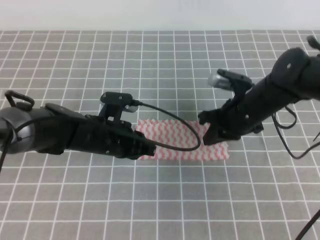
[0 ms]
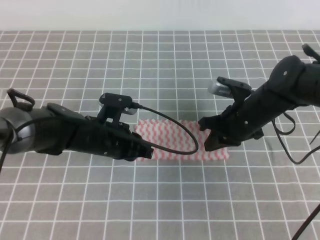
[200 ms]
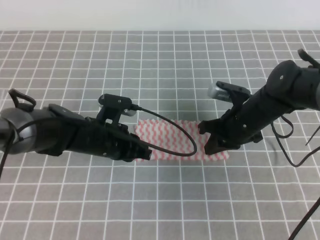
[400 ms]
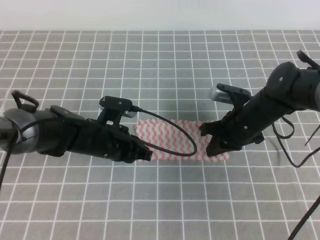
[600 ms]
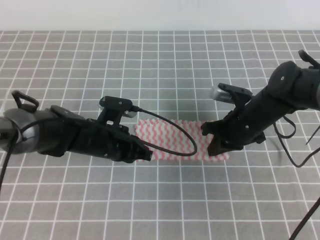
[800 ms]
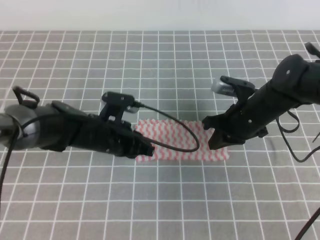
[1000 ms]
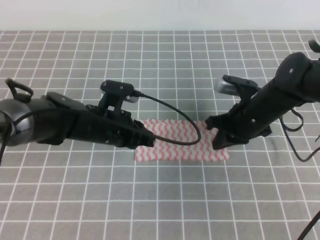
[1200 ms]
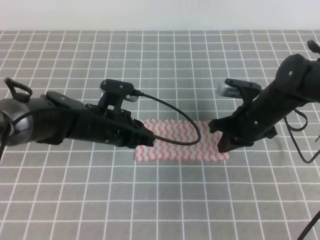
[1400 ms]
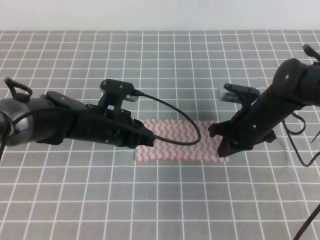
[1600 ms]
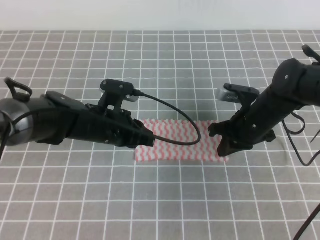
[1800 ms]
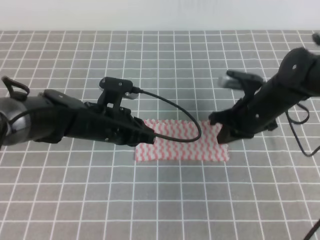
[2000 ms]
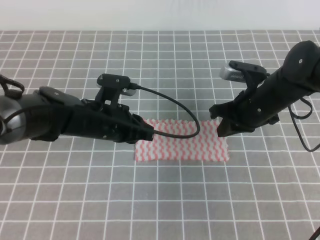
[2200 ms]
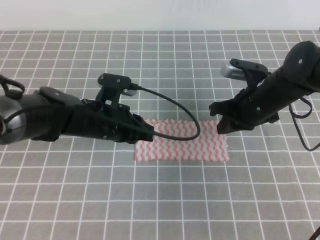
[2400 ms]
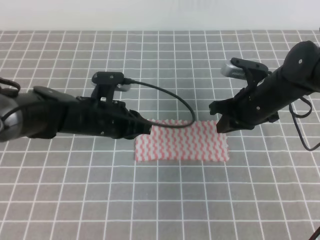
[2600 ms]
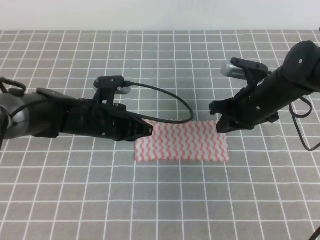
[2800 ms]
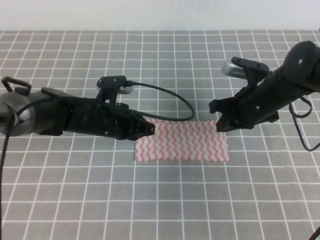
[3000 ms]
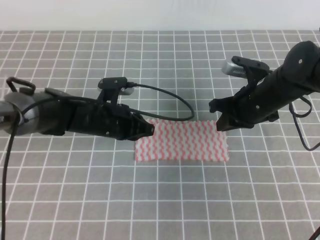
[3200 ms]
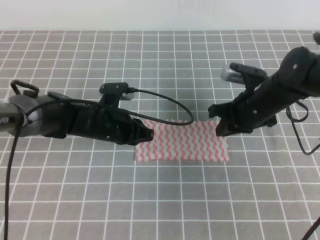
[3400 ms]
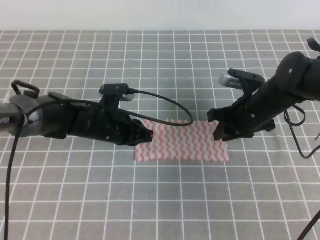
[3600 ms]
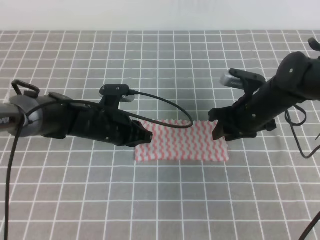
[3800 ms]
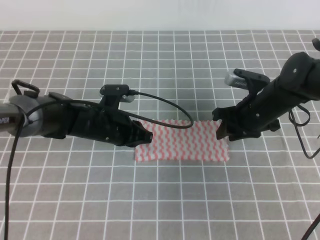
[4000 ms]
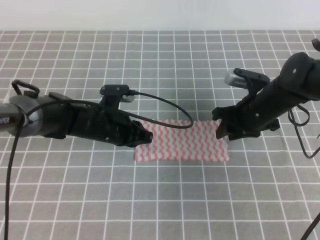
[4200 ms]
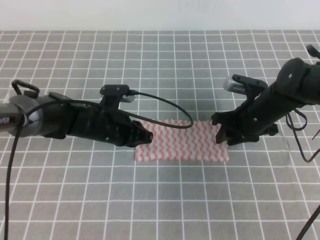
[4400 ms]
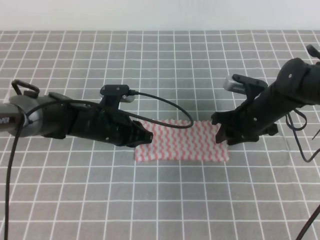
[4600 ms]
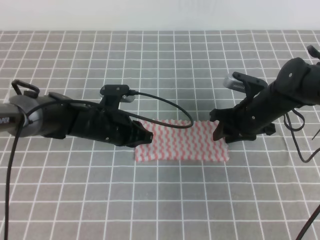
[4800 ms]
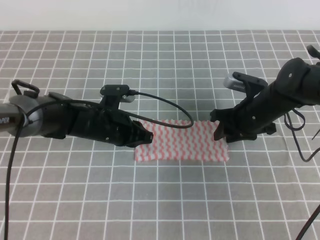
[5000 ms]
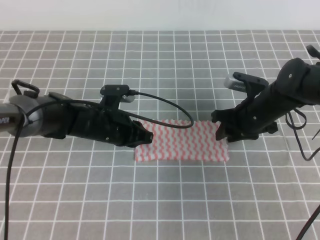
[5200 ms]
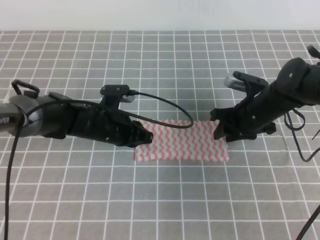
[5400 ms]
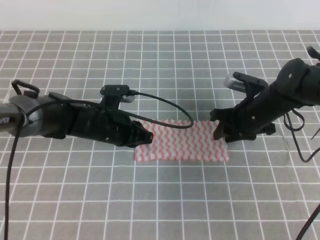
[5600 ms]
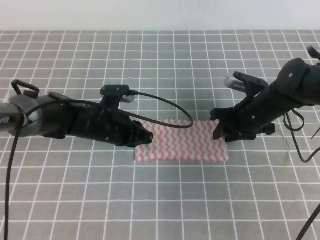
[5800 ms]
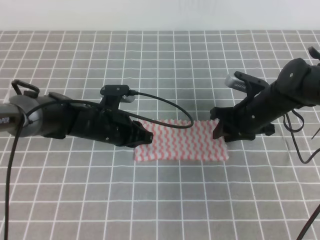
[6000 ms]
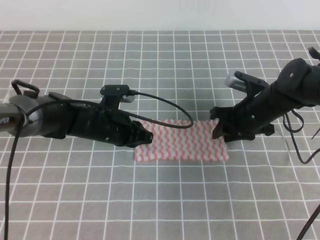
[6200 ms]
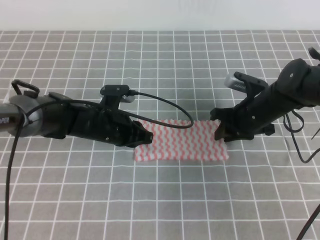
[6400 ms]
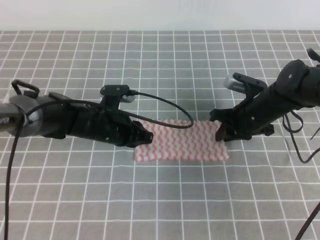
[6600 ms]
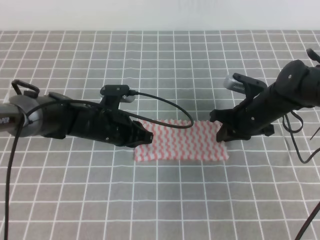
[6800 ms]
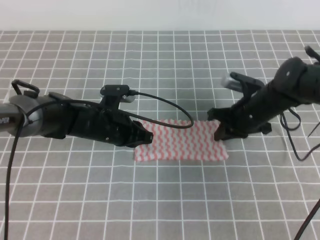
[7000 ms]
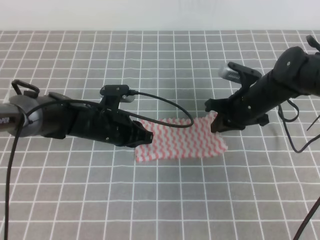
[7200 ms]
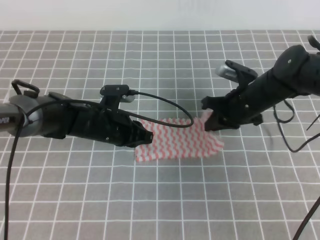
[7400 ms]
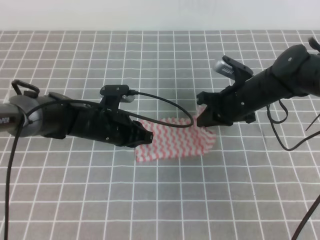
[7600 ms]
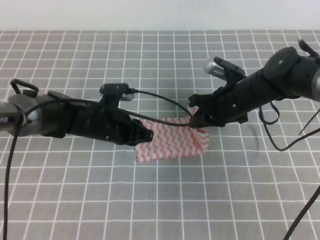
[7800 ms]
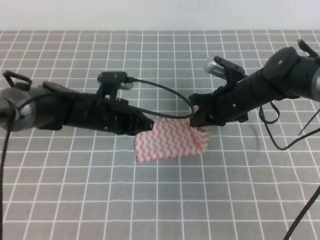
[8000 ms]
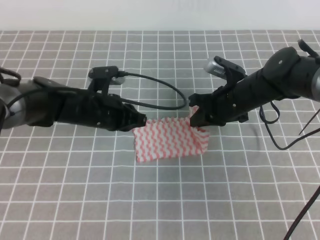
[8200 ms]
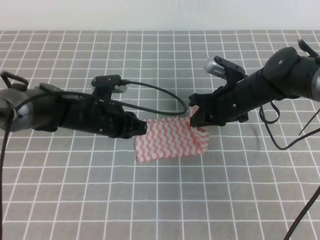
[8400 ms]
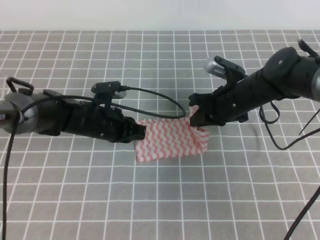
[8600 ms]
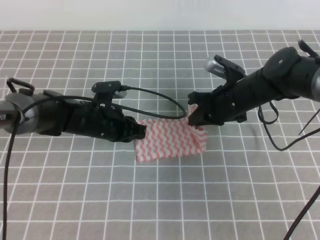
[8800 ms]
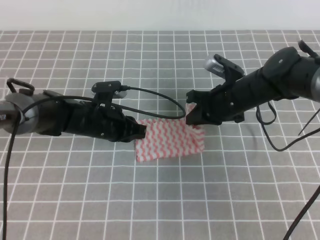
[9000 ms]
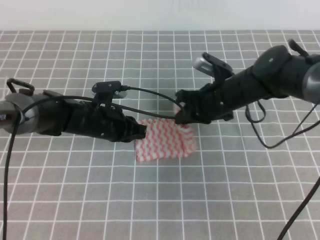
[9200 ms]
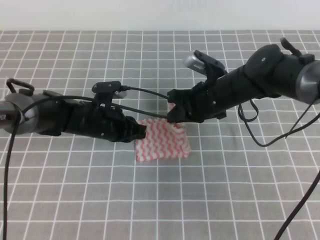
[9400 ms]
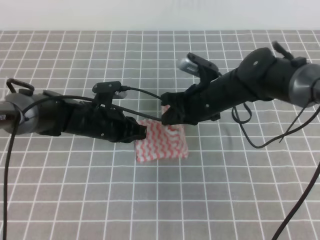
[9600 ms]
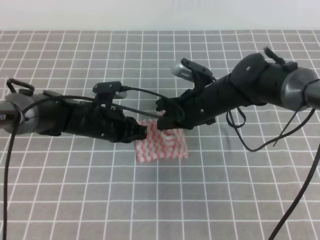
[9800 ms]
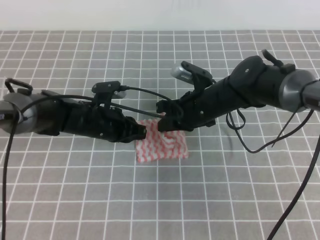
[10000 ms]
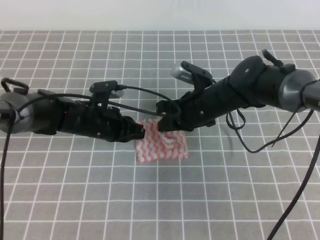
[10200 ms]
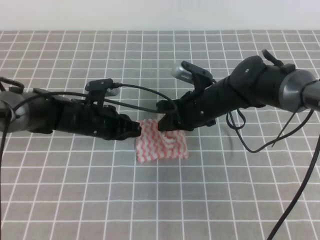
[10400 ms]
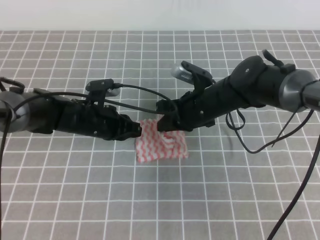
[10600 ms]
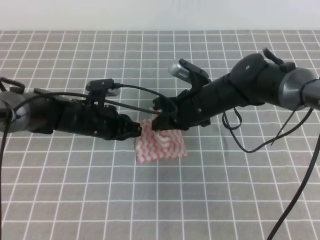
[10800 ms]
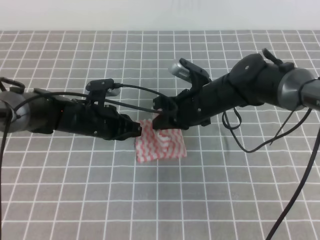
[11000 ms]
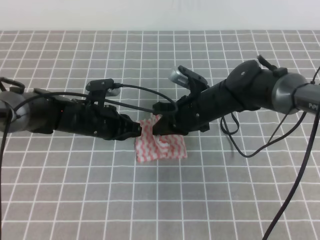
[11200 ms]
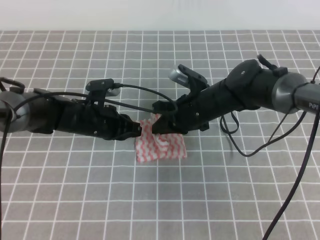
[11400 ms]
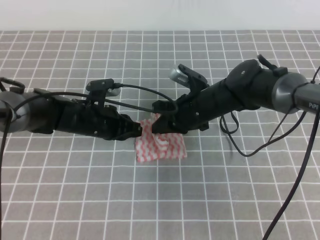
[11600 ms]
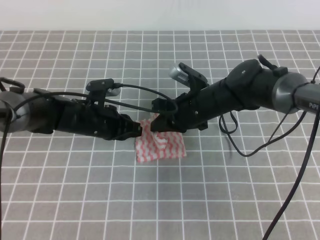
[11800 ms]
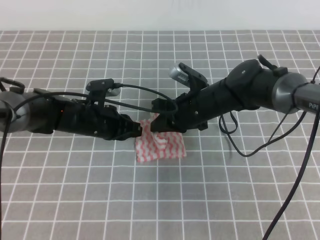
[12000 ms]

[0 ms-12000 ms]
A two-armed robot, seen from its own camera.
0 ms to 3000 ms: There are only small adjustments of the grippers.
3000 ms to 4400 ms: The right gripper opens.
4400 ms to 6000 ms: Both grippers stay about where they are.
6000 ms to 7600 ms: The right gripper closes its fingers.
7600 ms to 9000 ms: The grippers stay close to where they were, moving slightly.
9000 ms to 10400 ms: The right gripper is displaced to the left by approximately 5 cm.
10400 ms to 12000 ms: There are only small adjustments of the grippers.

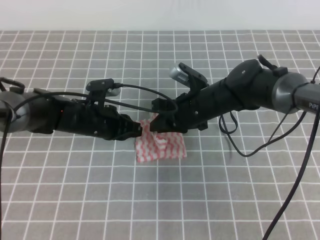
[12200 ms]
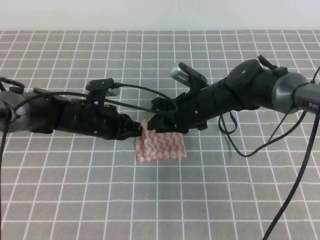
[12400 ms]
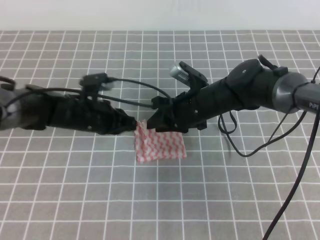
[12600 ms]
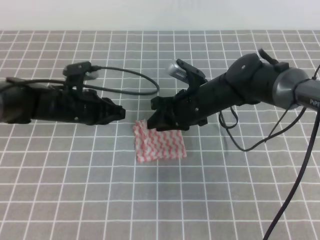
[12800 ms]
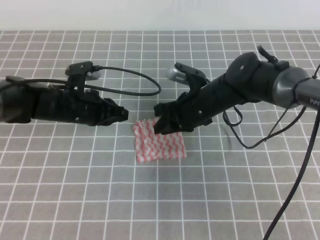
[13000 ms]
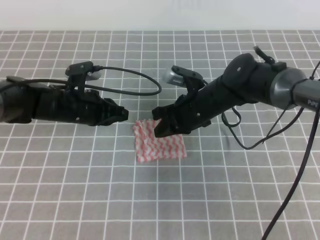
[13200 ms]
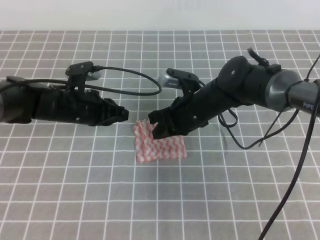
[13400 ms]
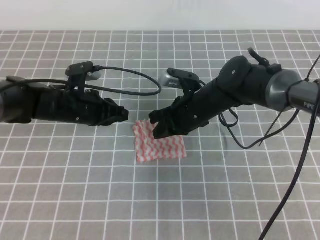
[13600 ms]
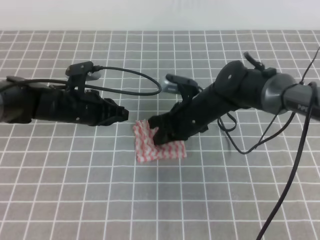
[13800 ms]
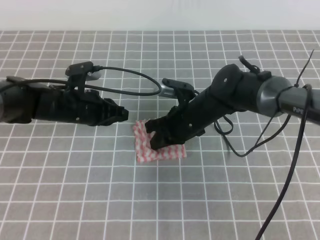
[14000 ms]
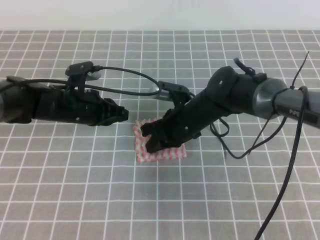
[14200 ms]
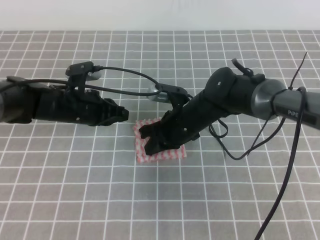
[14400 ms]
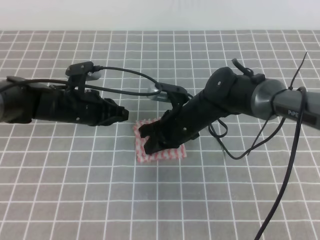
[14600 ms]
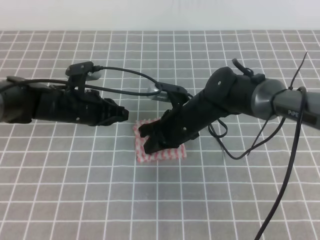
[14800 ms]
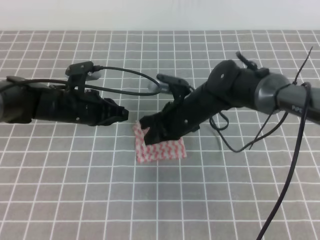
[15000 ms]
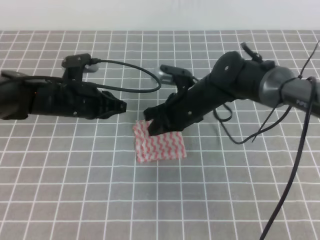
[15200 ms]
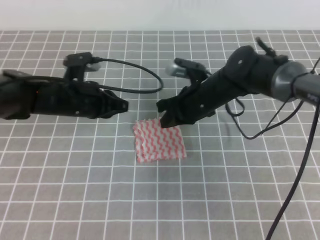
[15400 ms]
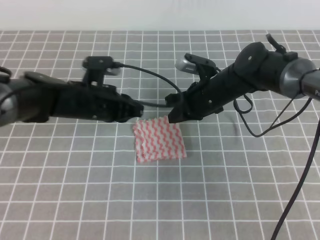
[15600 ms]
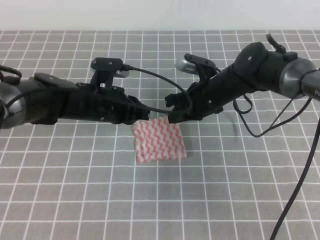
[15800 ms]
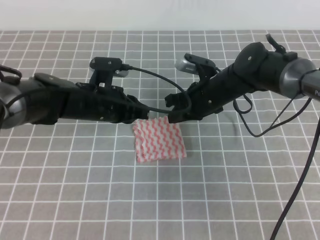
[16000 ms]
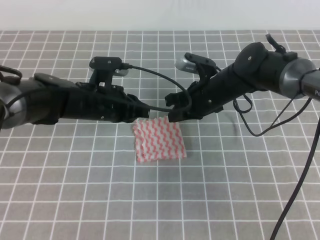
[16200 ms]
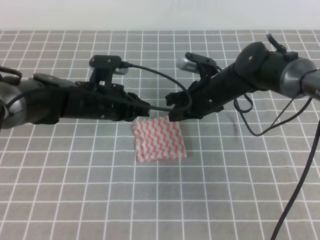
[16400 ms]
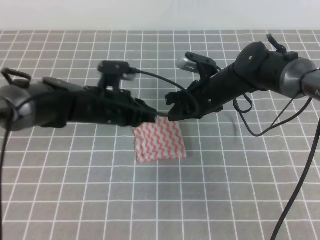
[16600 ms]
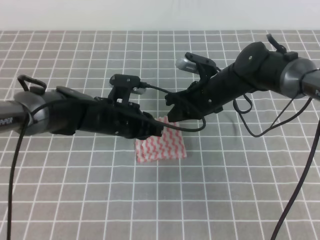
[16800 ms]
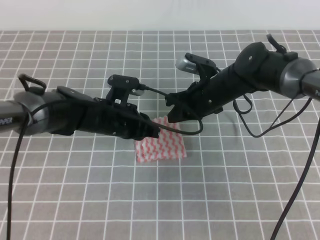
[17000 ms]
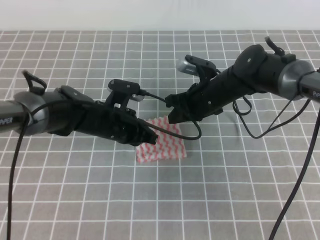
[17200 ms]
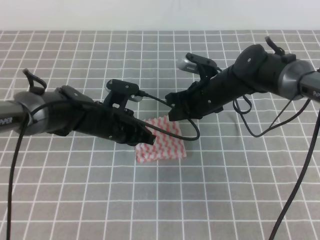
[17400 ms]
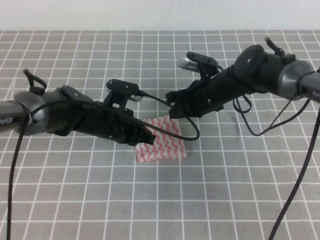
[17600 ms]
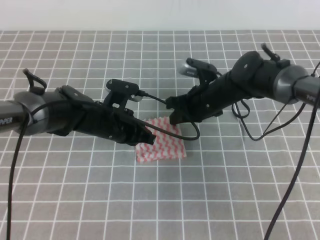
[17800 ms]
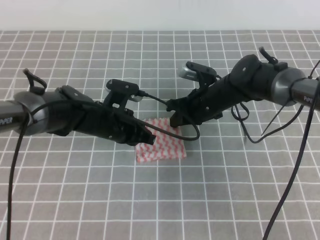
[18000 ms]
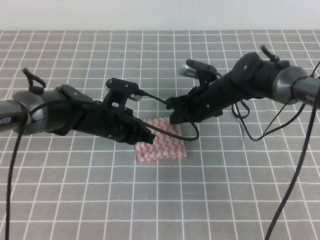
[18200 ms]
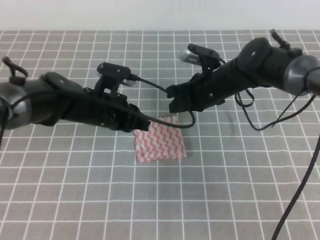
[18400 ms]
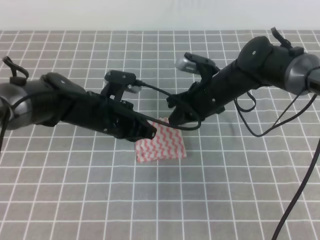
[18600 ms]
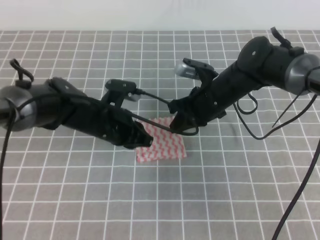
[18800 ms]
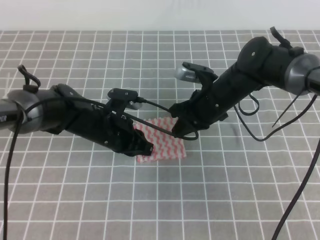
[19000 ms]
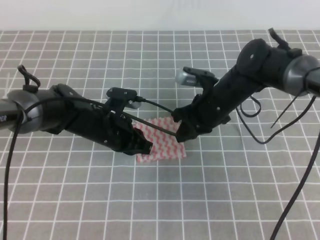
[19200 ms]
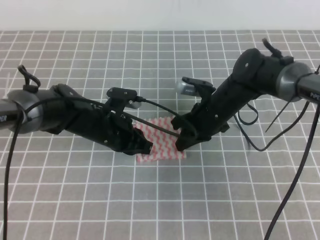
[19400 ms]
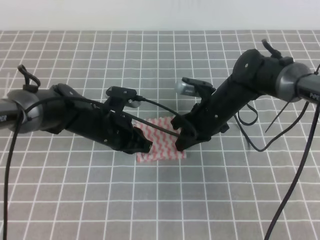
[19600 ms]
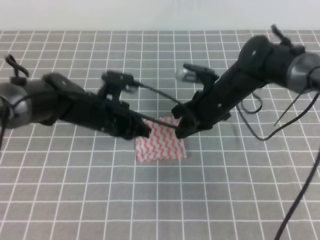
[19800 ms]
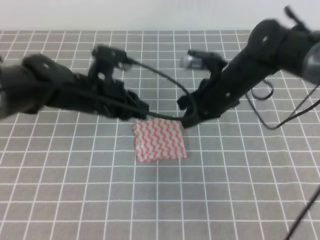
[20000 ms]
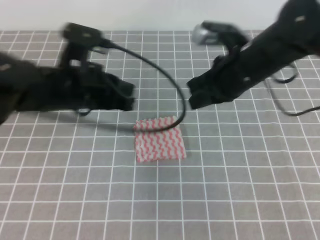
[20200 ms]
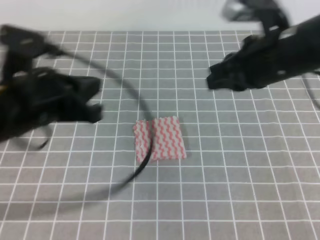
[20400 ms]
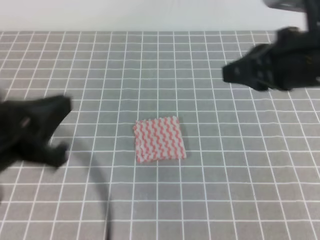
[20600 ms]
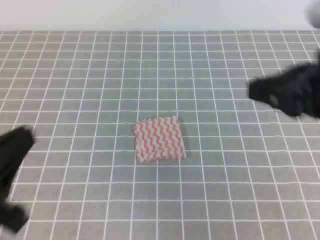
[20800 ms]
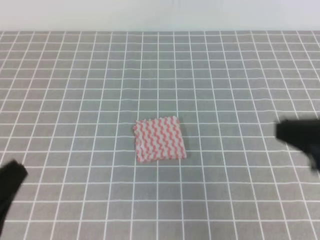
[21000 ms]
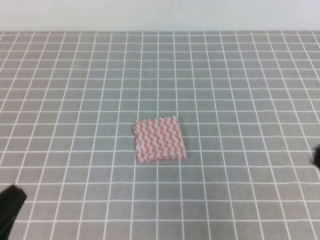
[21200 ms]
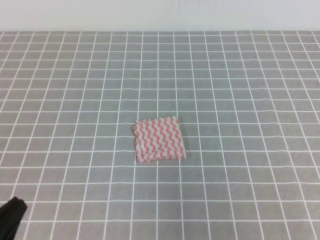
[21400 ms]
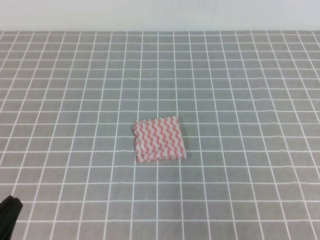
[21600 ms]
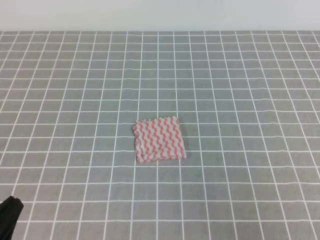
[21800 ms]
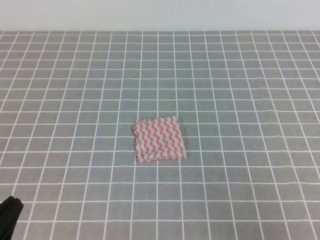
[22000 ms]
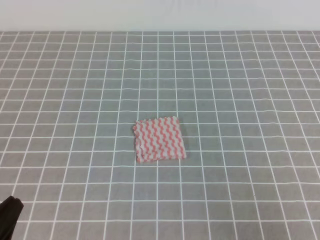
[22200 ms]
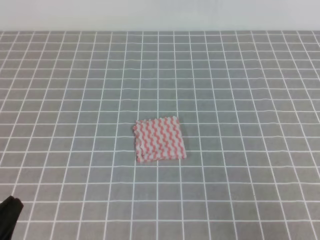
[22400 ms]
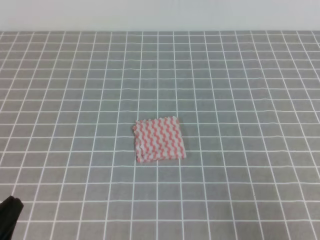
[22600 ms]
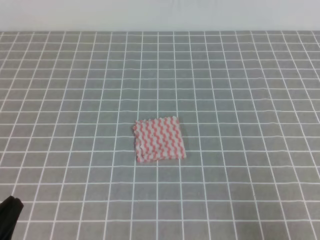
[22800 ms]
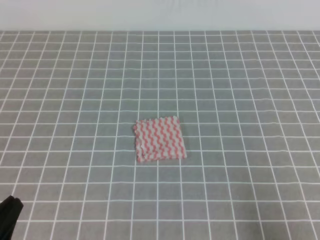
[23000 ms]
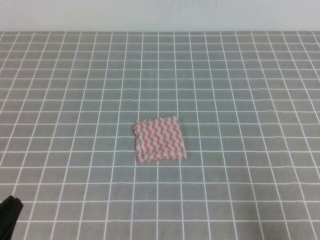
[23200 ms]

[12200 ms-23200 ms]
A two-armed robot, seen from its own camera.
12200 ms to 13800 ms: The right gripper opens, then closes again.
13800 ms to 15400 ms: There are only small adjustments of the grippers.
15400 ms to 17000 ms: The left gripper shifts approximately 5 cm to the right.
17000 ms to 18400 ms: The grippers make only small movements.
18400 ms to 20000 ms: Both grippers move upward, roughly 5 cm.
20000 ms to 21600 ms: The right gripper travels backward and to the right by approximately 35 cm, while the left gripper moves backward and to the left, approximately 30 cm.
21600 ms to 23200 ms: The right gripper moves downward, roughly 5 cm.
